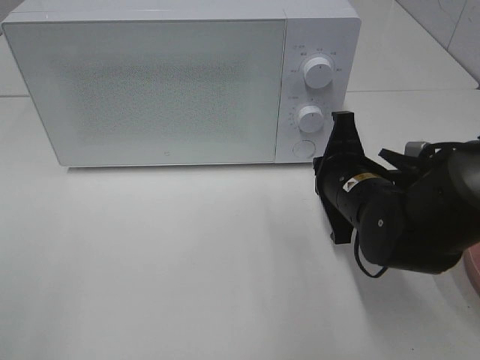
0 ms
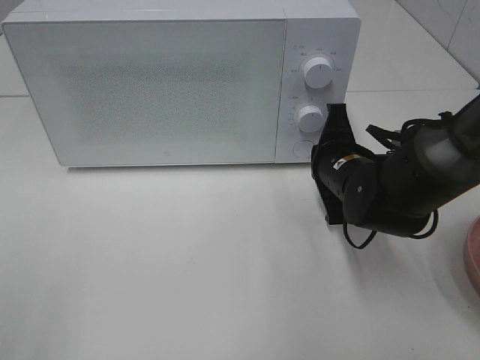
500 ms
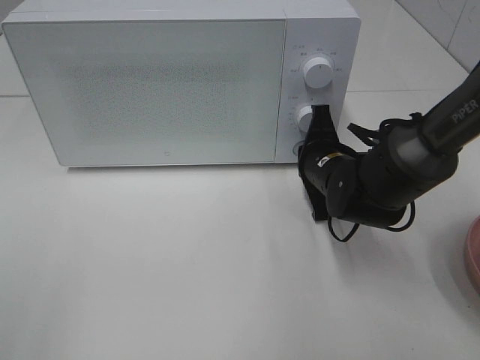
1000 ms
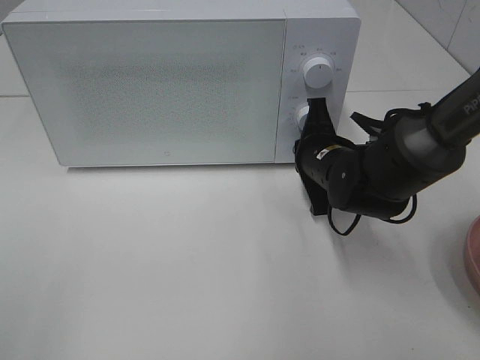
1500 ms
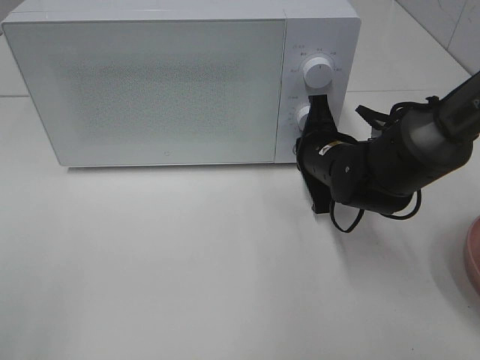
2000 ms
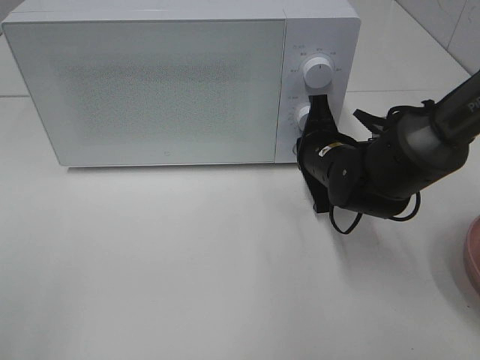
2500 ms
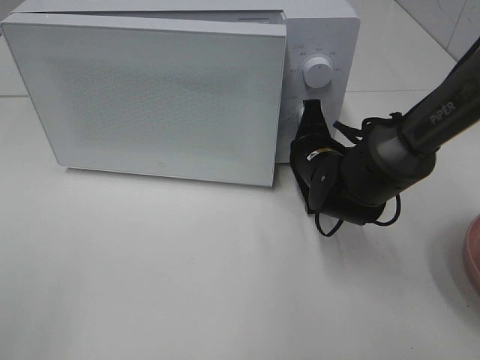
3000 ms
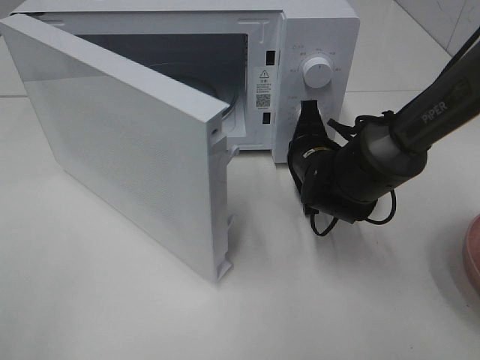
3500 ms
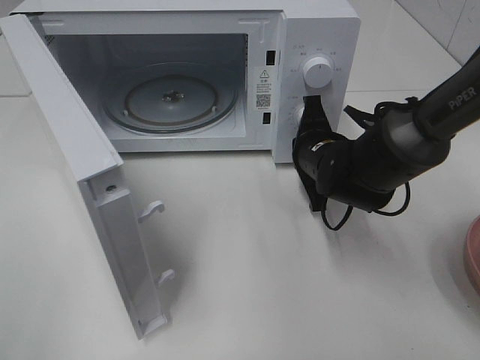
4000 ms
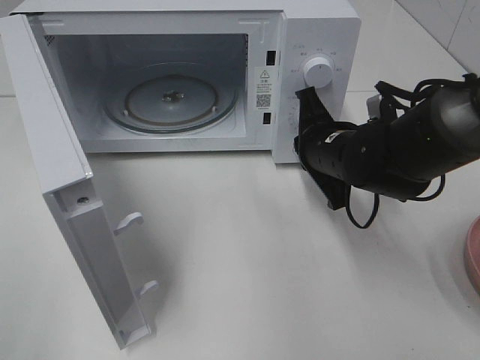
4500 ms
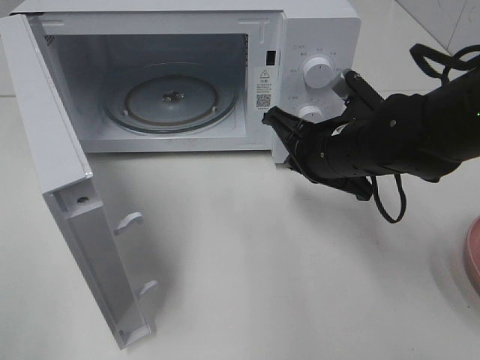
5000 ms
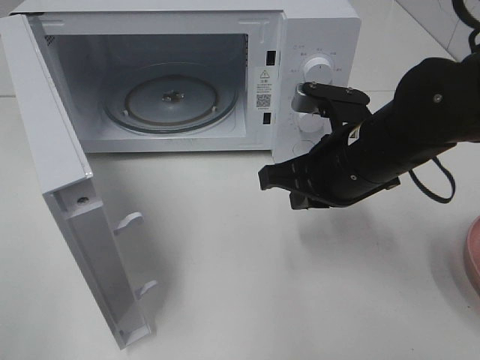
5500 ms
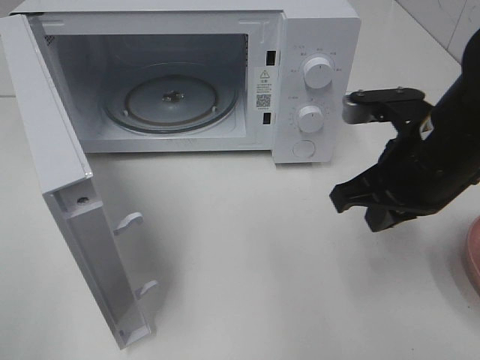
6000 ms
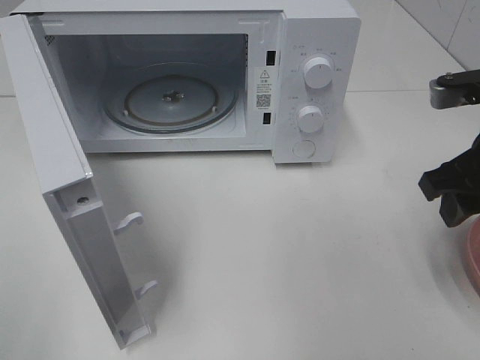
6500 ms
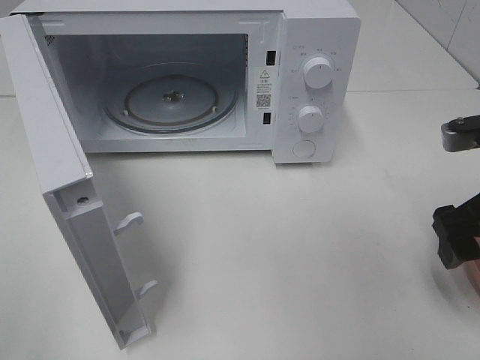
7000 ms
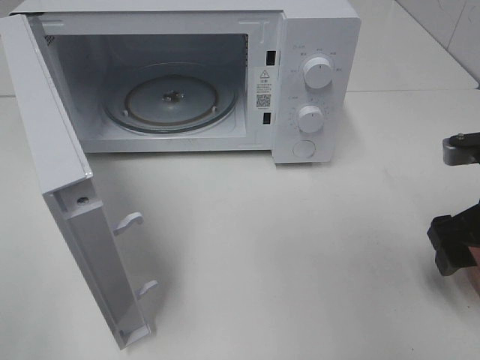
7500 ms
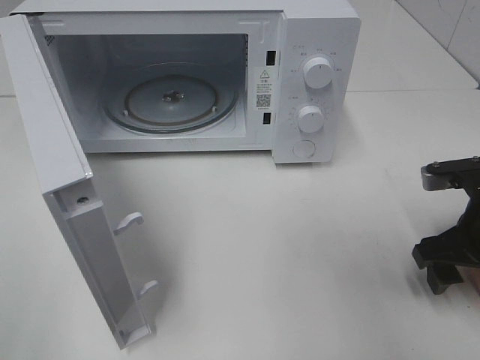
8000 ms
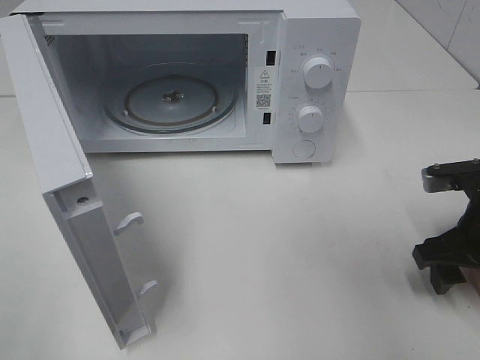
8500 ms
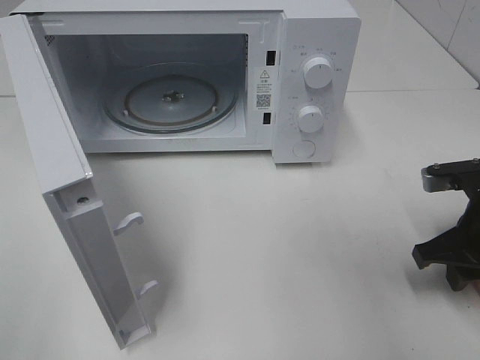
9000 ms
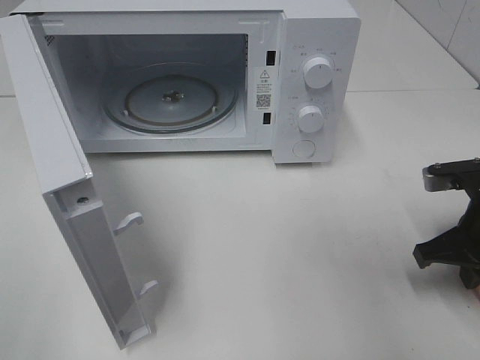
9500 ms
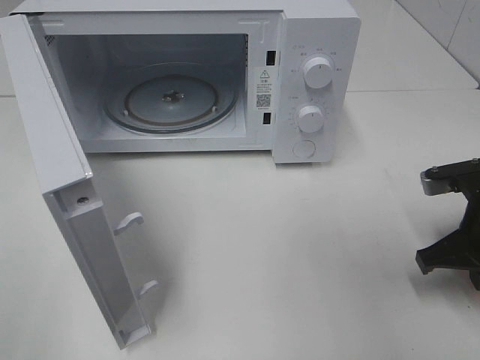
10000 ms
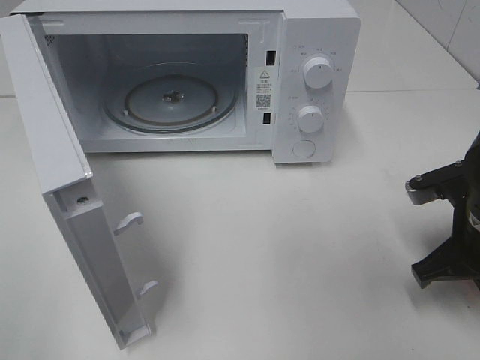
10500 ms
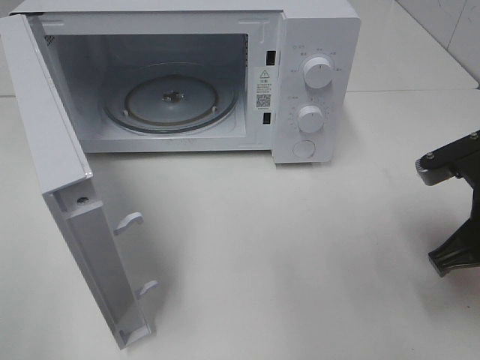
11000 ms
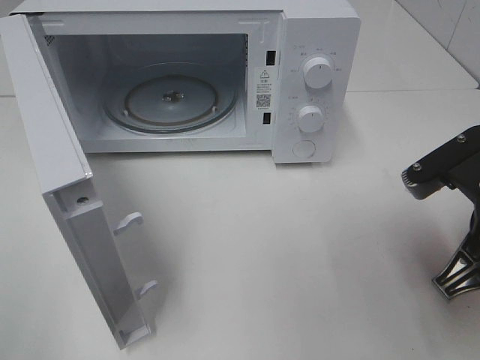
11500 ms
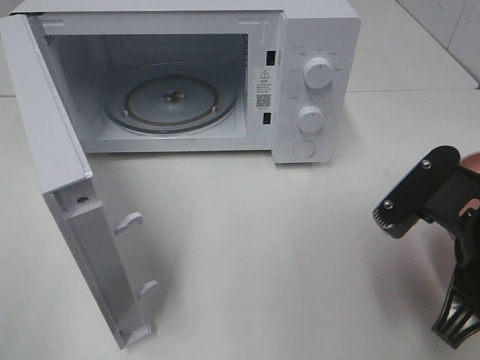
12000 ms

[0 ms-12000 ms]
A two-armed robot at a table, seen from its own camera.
Task of the whole recording: Heat the burger.
Step, 0 ms to 4000 ms: Right hand: press the switch.
Step, 4500 ms to 9500 ms: Right hand: grab the plate with the hamburger.
0 ms to 2000 ms: The right gripper shifts some 5 cm forward.
4000 ms to 6000 ms: The right gripper heads backward, upward and to the right, covering roughly 15 cm.
6000 ms to 8000 ms: The right gripper shifts some 10 cm to the right and downward, and opens.
8000 ms to 10000 ms: The right gripper closes its fingers.
10000 ms to 12000 ms: The right gripper heads backward, to the left and upward, covering roughly 15 cm.

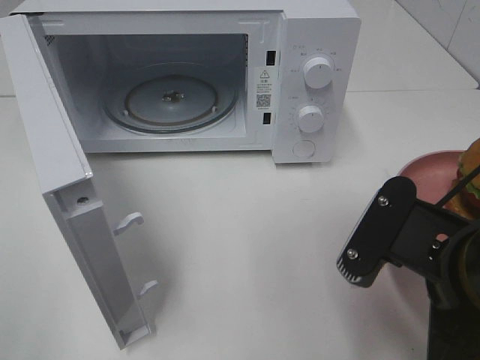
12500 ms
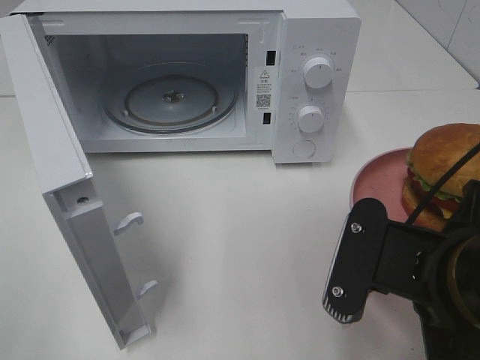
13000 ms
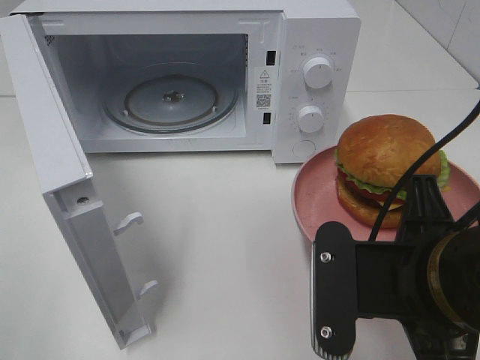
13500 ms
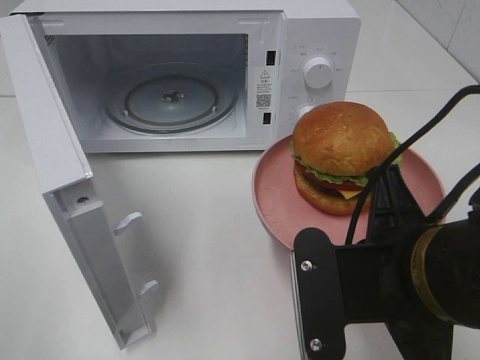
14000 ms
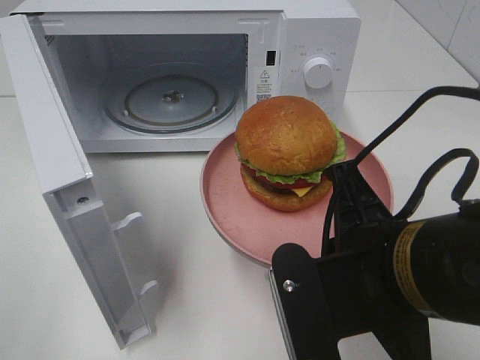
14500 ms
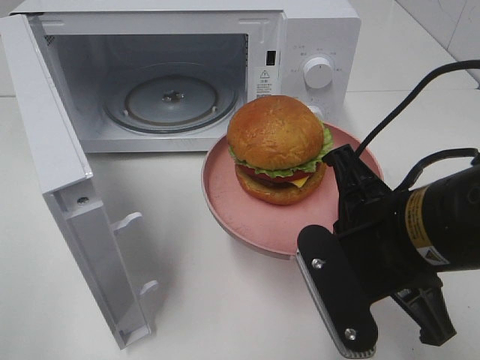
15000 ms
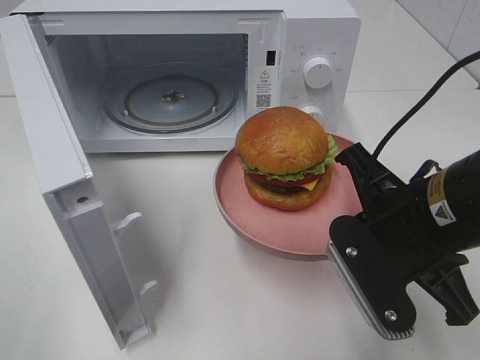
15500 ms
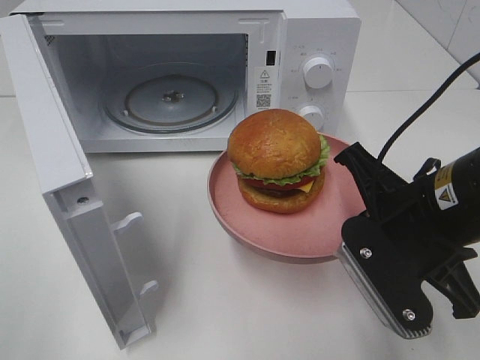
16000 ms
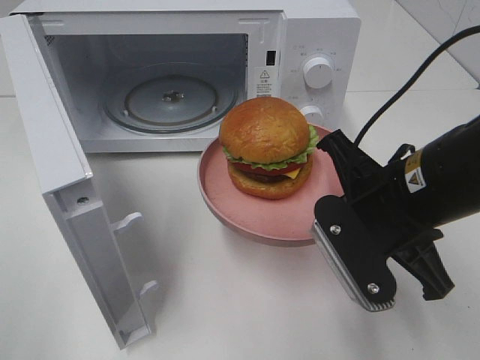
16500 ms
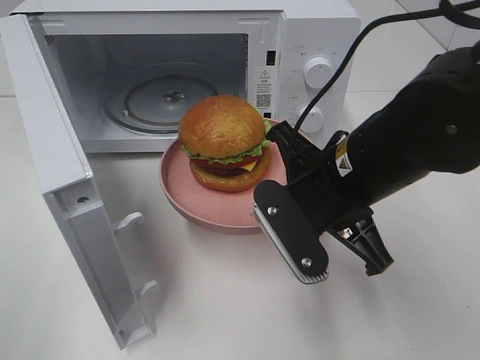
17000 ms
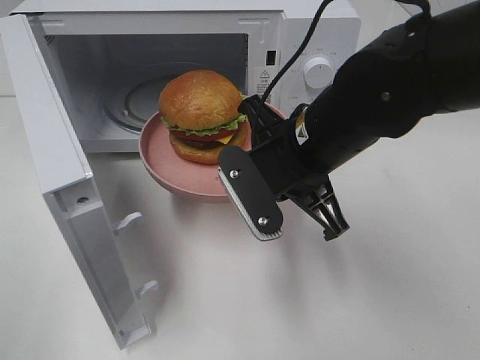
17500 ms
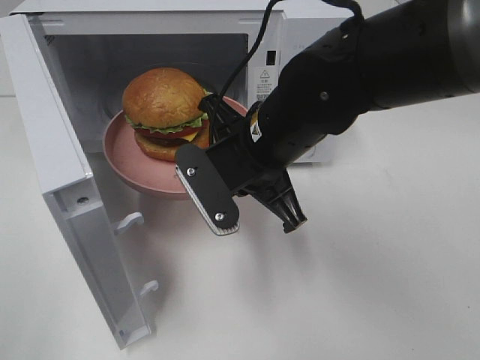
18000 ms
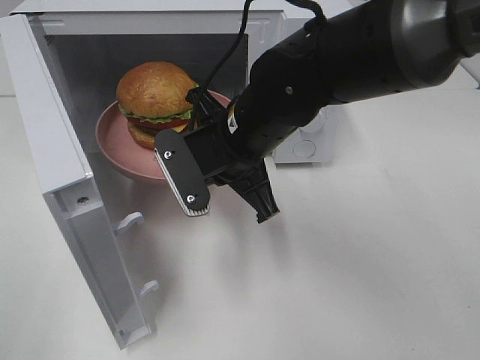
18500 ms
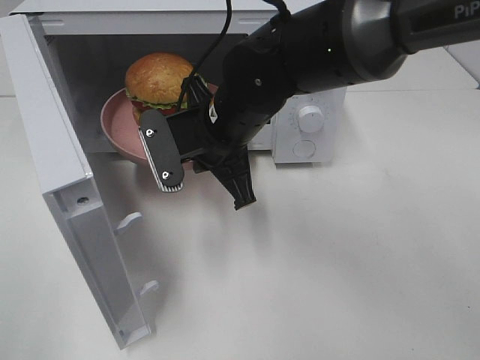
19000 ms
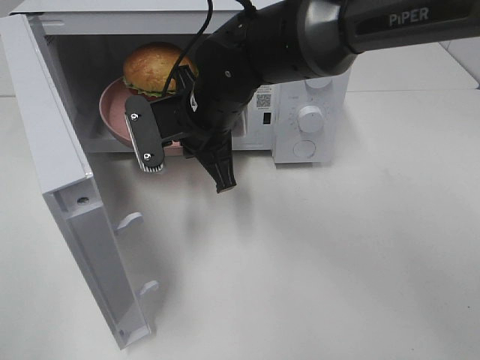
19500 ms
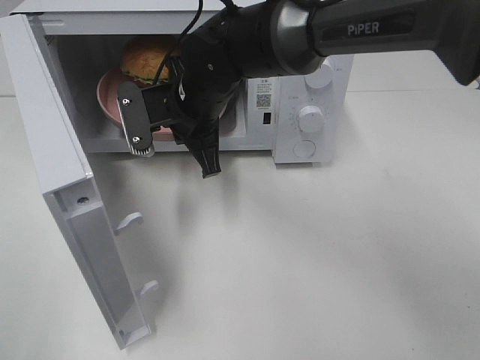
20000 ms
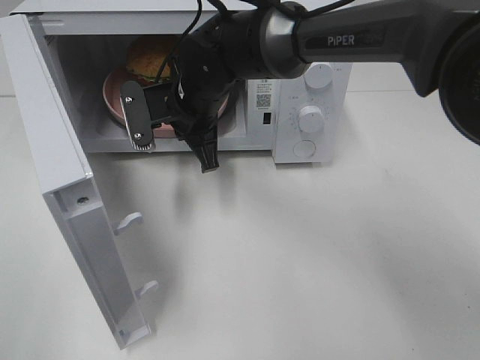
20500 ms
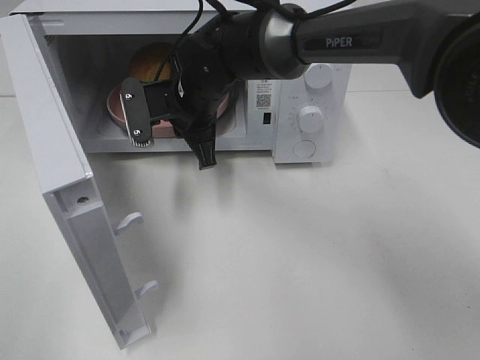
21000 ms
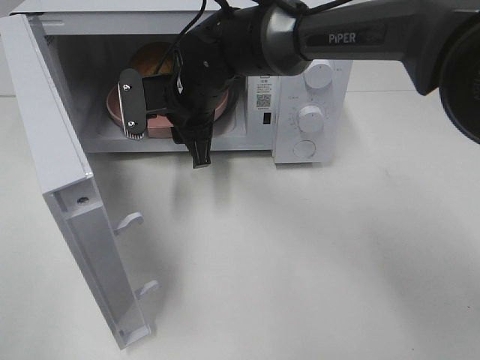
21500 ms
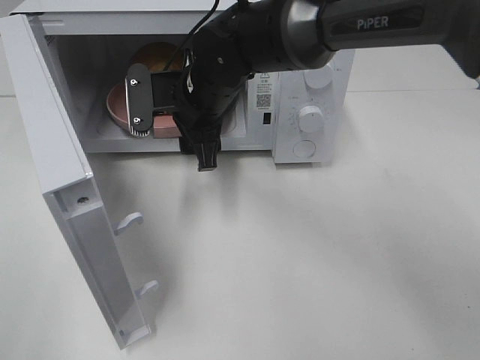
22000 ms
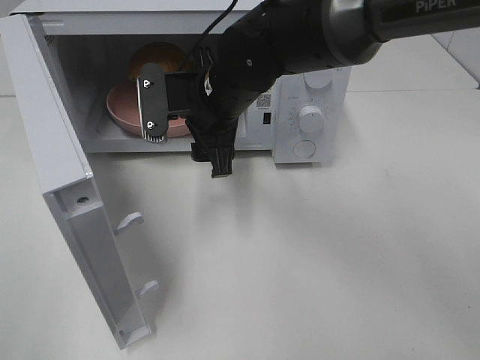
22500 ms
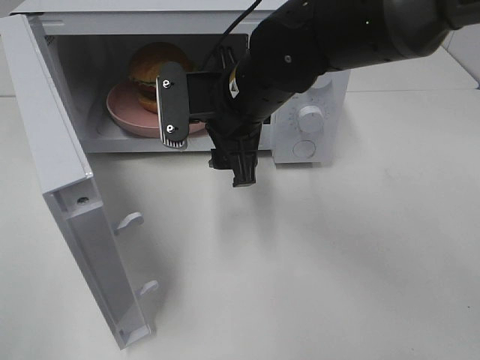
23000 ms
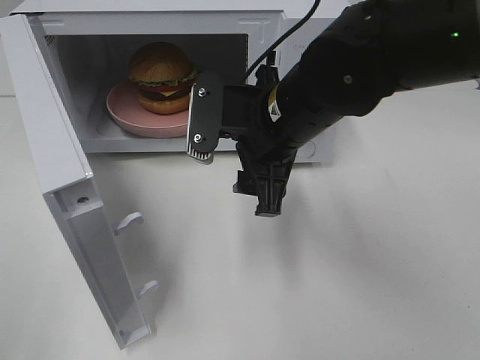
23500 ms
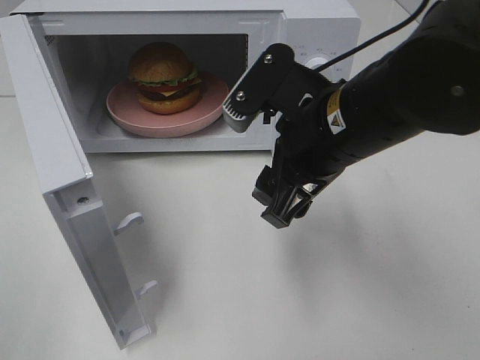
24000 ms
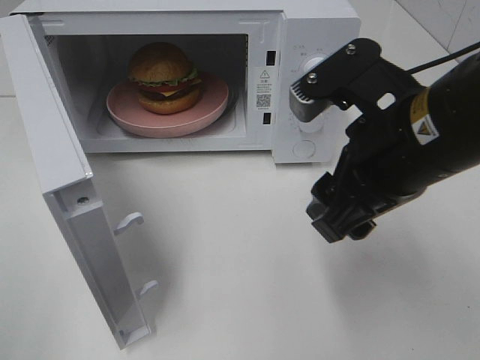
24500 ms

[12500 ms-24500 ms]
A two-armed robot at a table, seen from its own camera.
Task of the whole recording: Heat the burger.
Step, 12500 ms to 21000 ms: Right hand: place the plate in the microwave.
14500 ms to 16500 ms: The right gripper moves forward, about 10 cm.
16500 ms to 18500 ms: The right gripper goes roughly 15 cm to the left and forward.
18500 ms to 20500 ms: The right gripper heads forward and to the left, covering about 10 cm.
20500 ms to 22500 ms: The right gripper changes place by about 5 cm, and opens its fingers.
22500 ms to 24500 ms: The right gripper travels backward and to the right by about 20 cm.

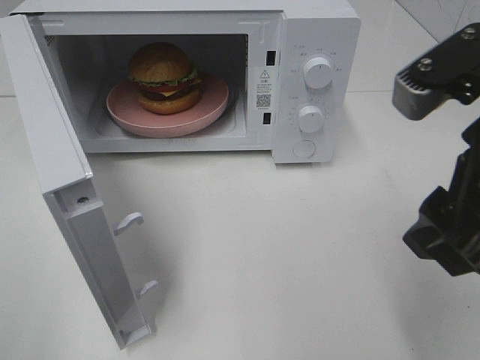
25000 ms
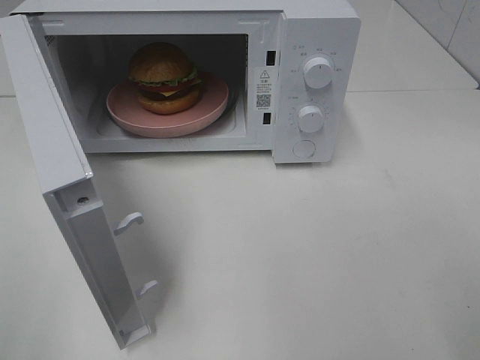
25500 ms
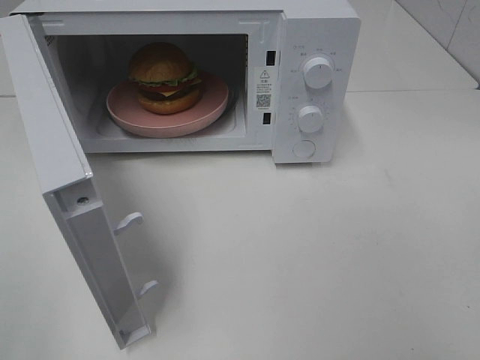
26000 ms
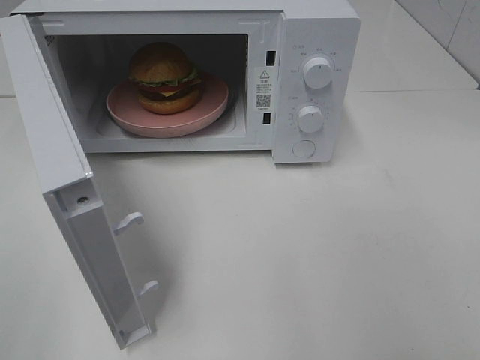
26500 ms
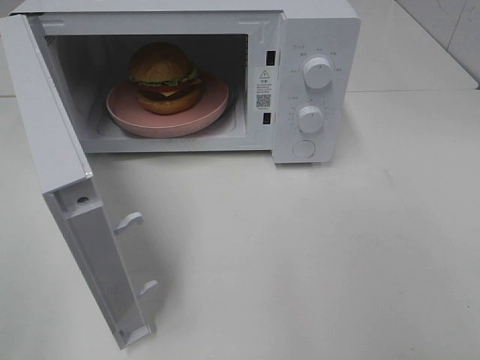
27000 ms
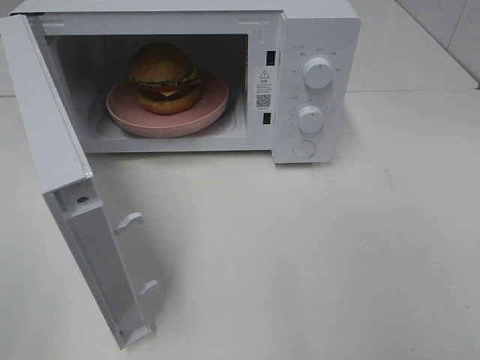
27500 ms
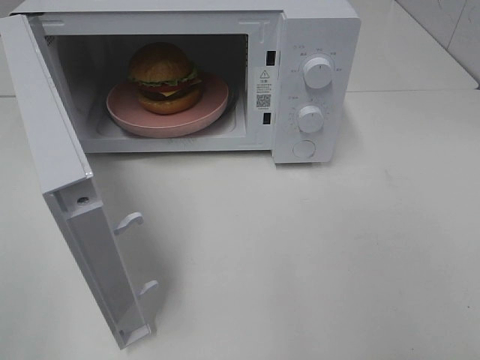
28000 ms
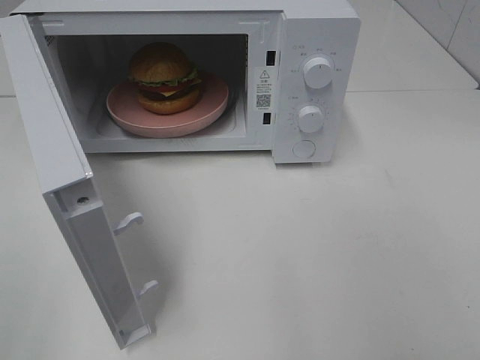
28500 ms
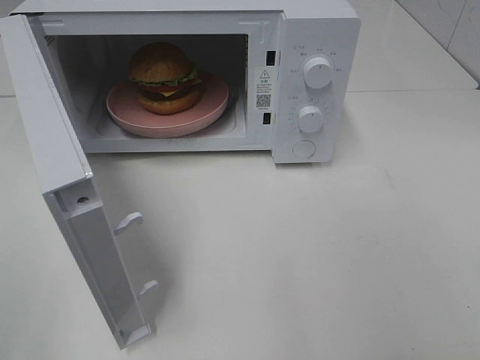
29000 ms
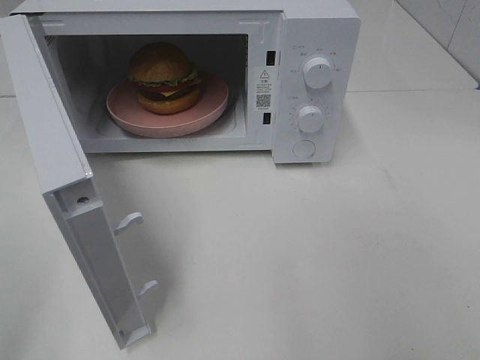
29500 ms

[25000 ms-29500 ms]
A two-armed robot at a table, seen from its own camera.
Task of the whole recording: Heat the burger.
25000 ms to 27000 ms: The right gripper moves backward and to the right, some 20 cm.
